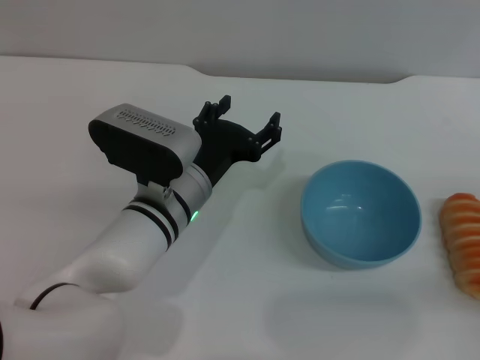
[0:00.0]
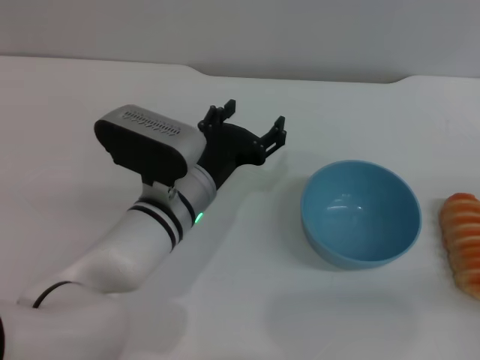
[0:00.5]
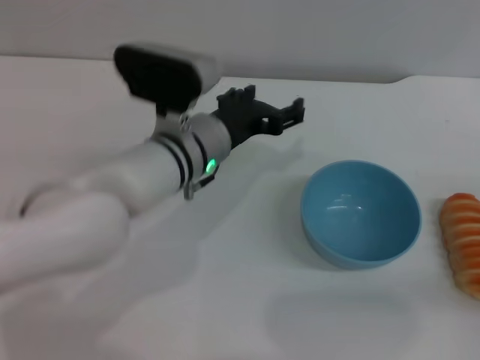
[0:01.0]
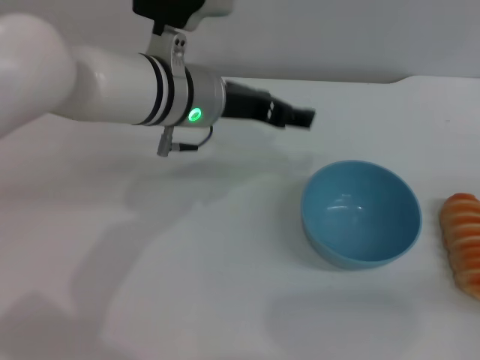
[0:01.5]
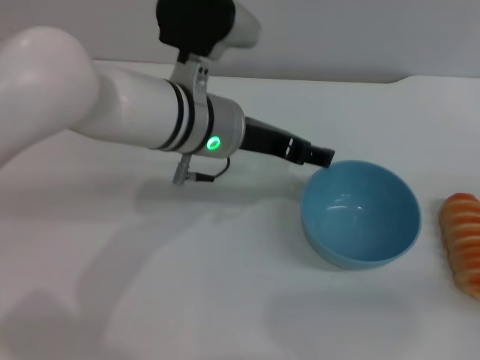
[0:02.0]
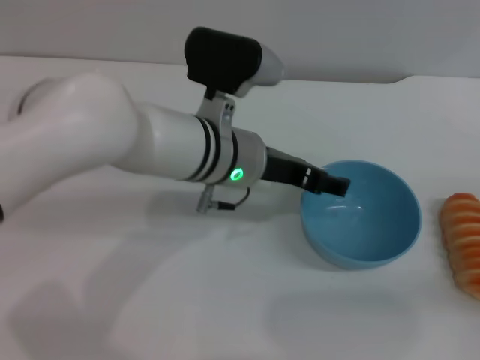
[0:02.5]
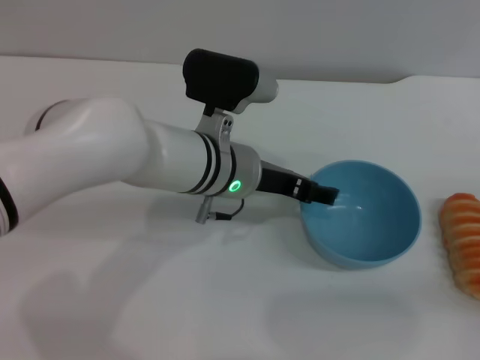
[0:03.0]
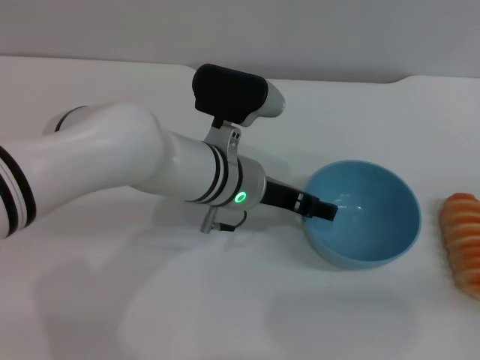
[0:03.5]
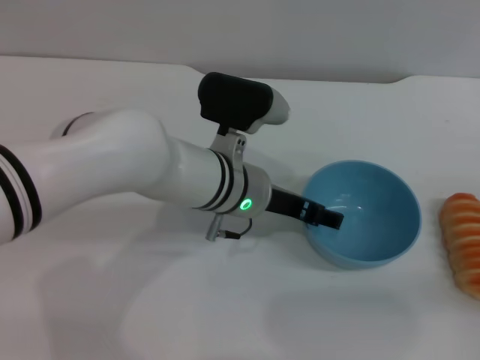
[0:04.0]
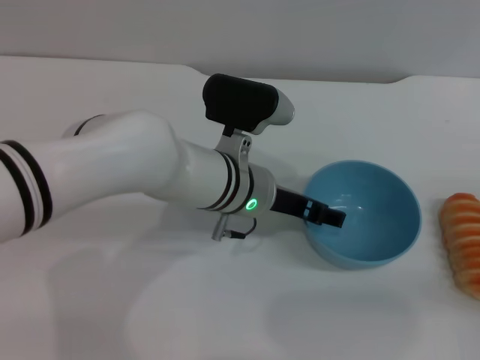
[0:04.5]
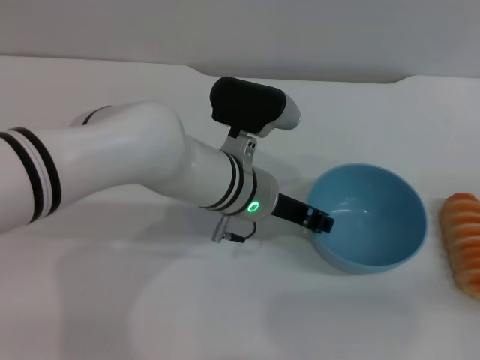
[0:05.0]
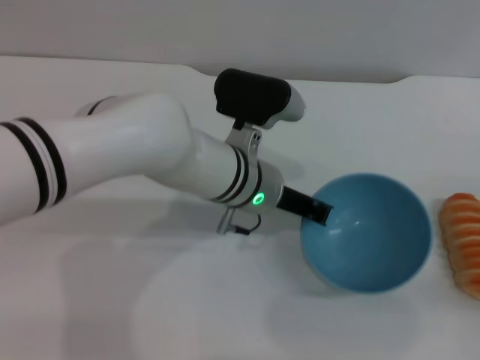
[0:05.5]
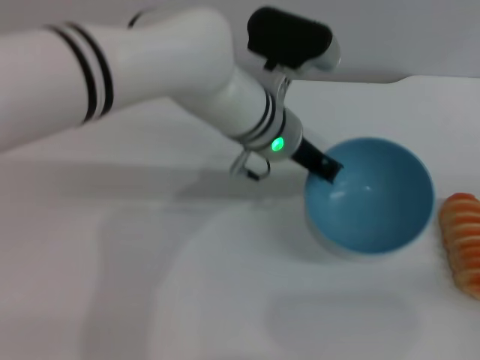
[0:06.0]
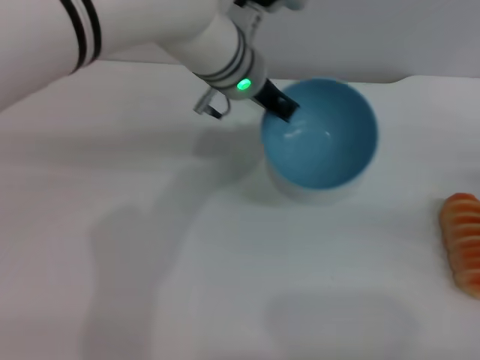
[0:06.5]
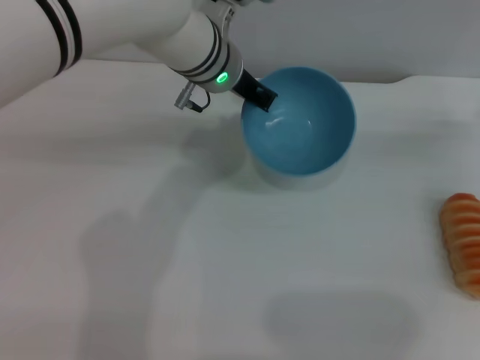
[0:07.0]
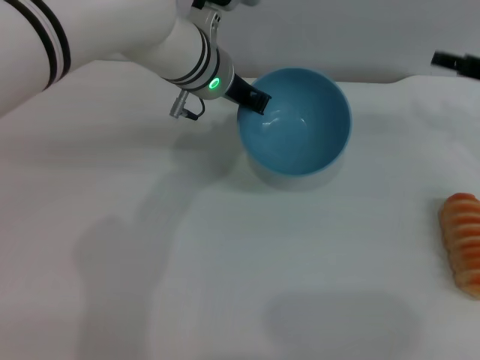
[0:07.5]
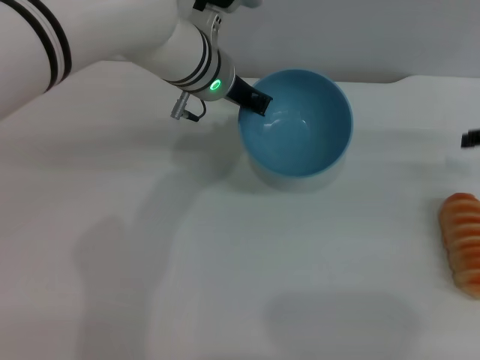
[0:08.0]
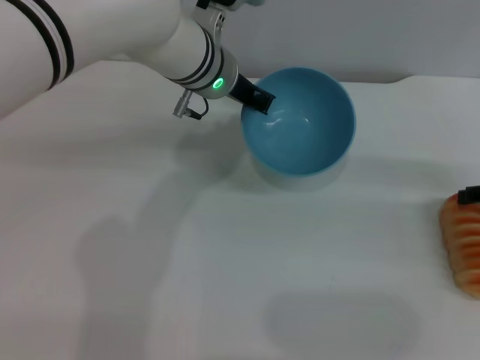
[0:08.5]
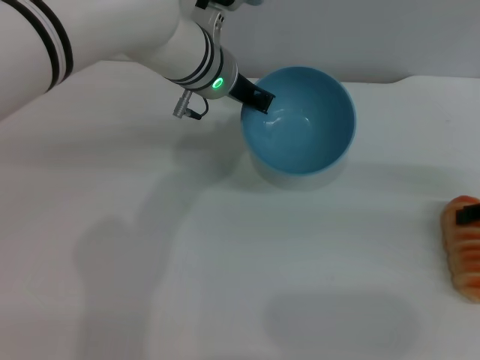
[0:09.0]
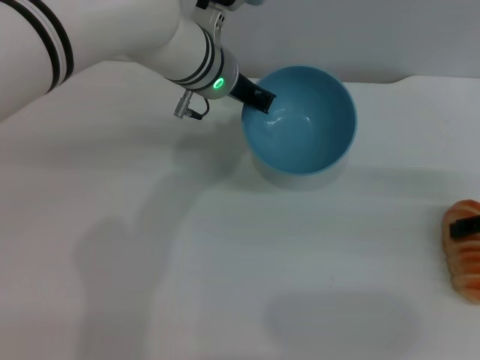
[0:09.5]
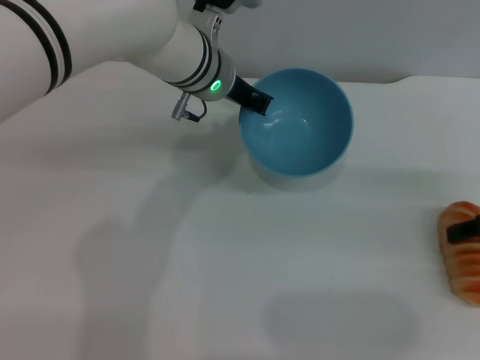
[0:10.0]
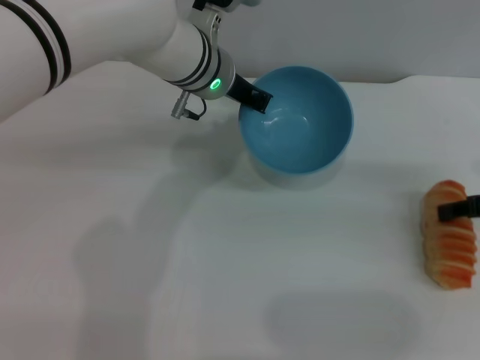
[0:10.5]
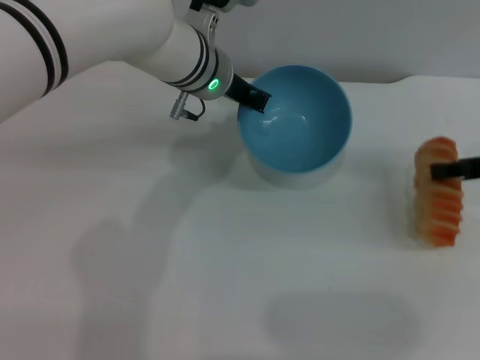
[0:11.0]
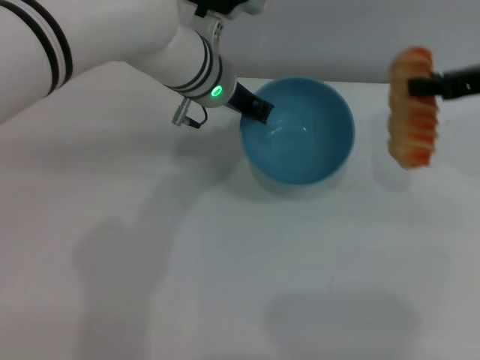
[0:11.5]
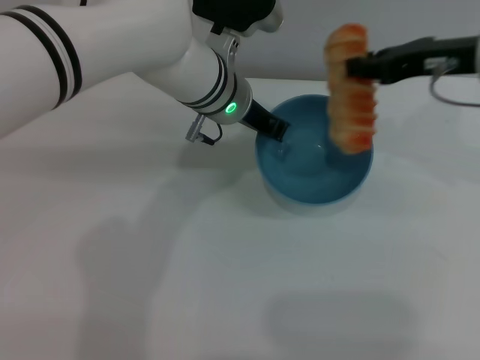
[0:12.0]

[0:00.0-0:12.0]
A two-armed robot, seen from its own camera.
Task of the whole recording: put the bread into the blue bowl and pour it out repeatedly.
Step, 0.0 to 6.5 s: Pick up the bowl with the left gripper.
Step, 7.0 to 11.0 s: Pick up the bread with the right gripper.
0.0 to 2.0 s: The left gripper heads upward, covering some 10 cm.
2.0 to 4.0 s: The left gripper shifts about 5 cm downward.
4.0 to 6.0 s: The left gripper shifts roughly 5 cm forward, and closes.
6.0 to 8.0 s: The left gripper goes some 5 cm to the left. Meanwhile the right gripper travels forward and upward by some 20 cm.
8.0 to 10.0 s: The right gripper shifts by approximately 5 cm.
10.0 to 12.0 s: The right gripper moves to the left, upward and forward, about 15 cm, and closes up.

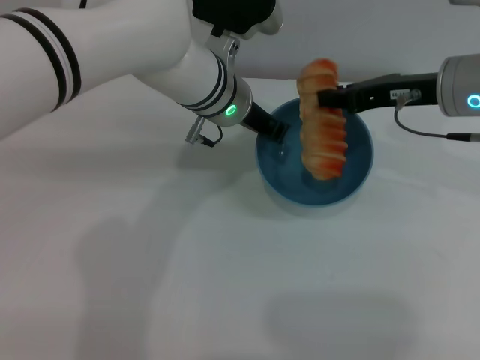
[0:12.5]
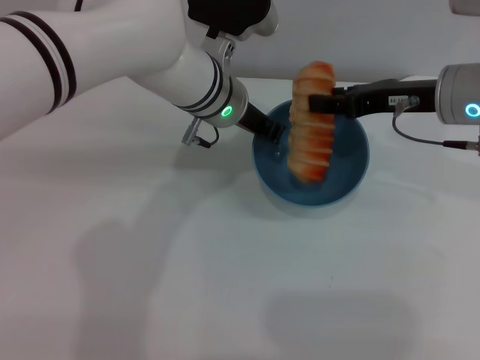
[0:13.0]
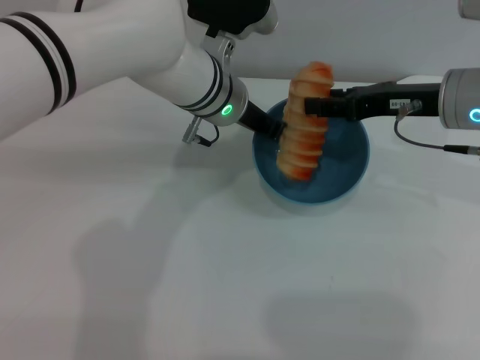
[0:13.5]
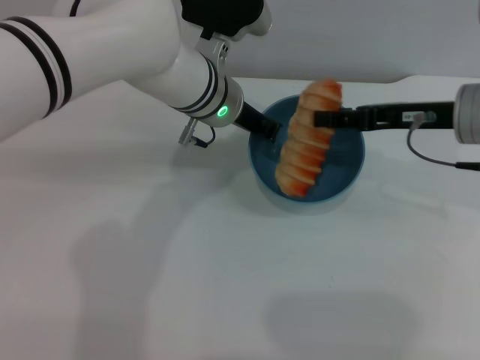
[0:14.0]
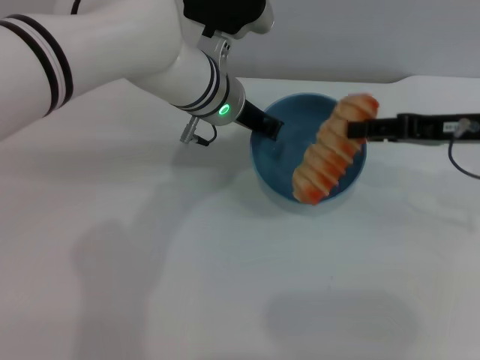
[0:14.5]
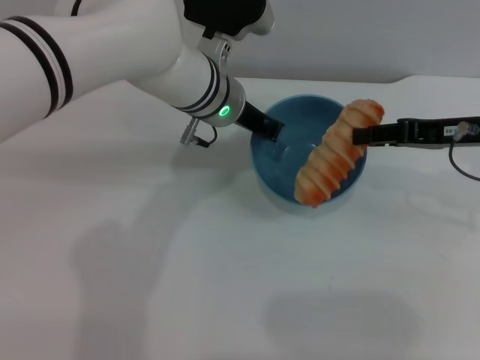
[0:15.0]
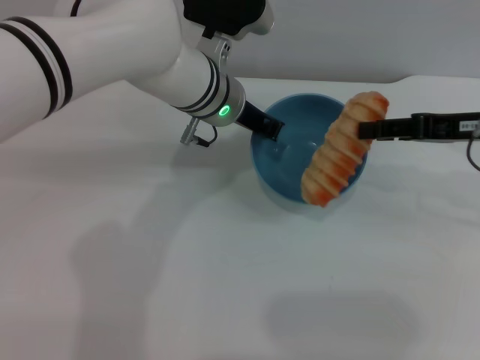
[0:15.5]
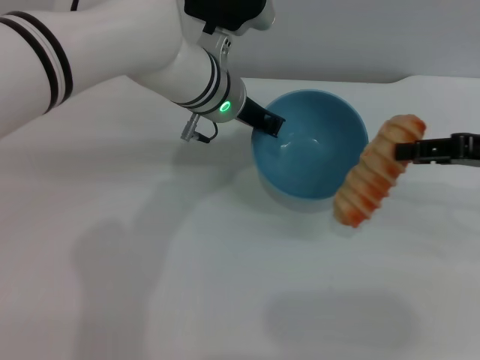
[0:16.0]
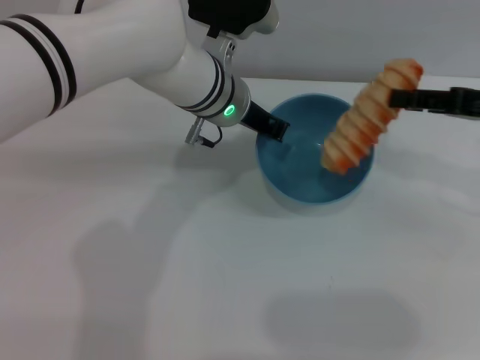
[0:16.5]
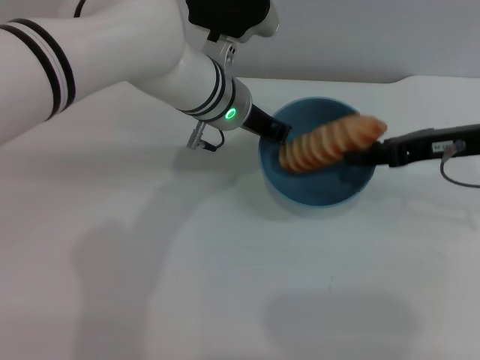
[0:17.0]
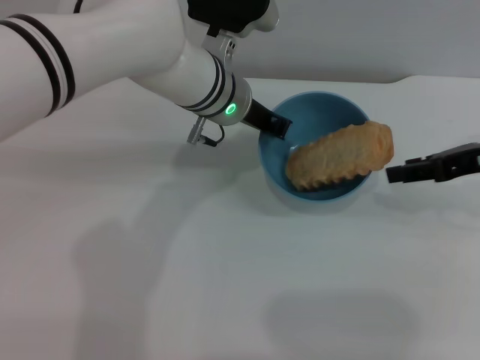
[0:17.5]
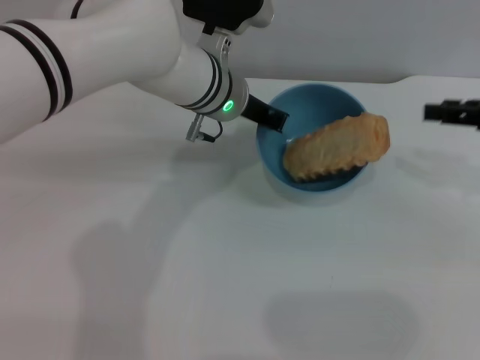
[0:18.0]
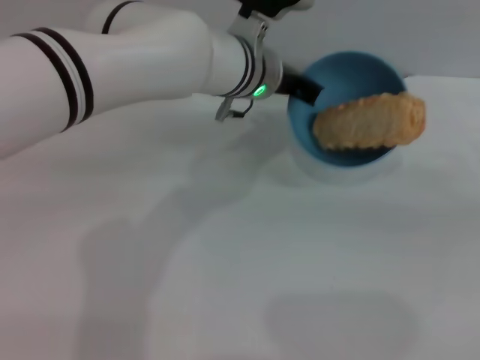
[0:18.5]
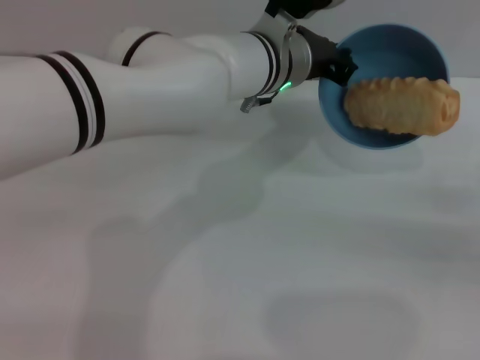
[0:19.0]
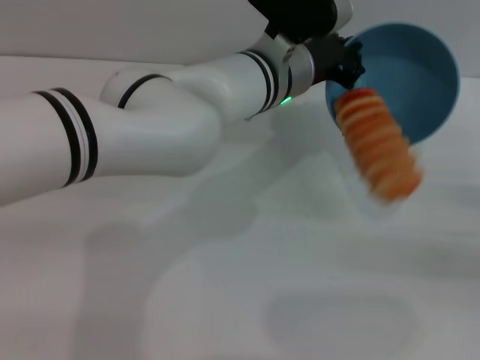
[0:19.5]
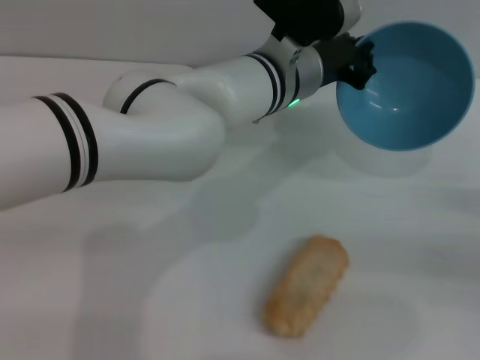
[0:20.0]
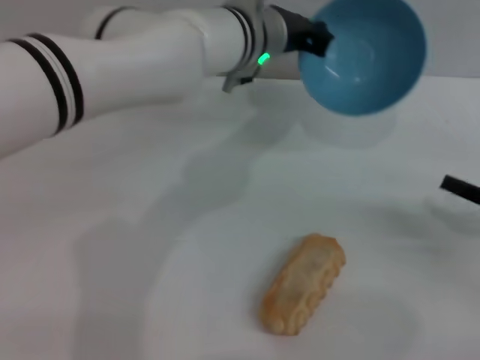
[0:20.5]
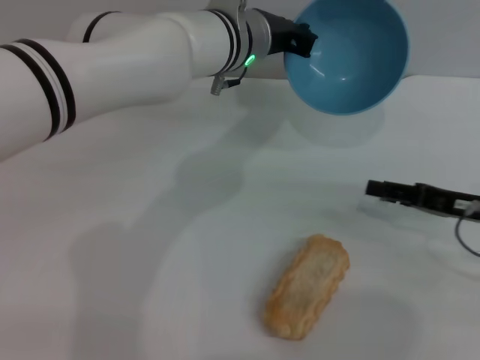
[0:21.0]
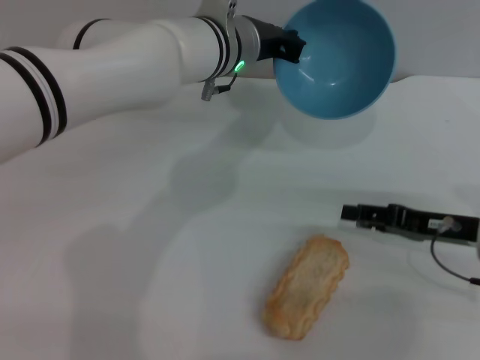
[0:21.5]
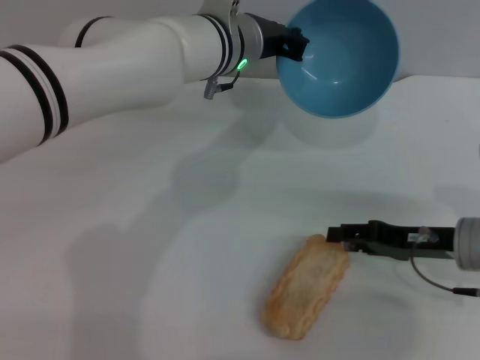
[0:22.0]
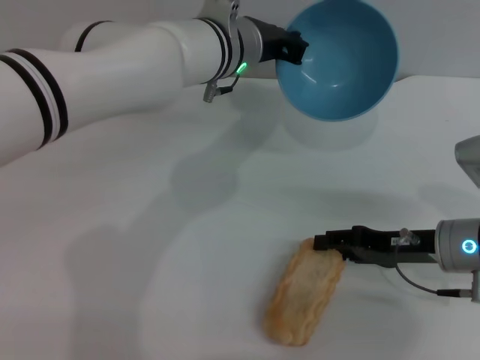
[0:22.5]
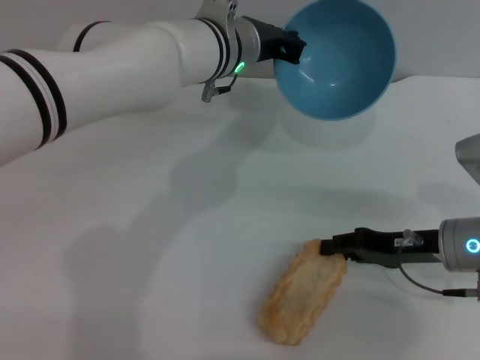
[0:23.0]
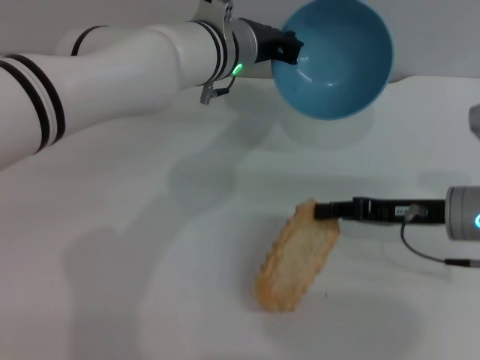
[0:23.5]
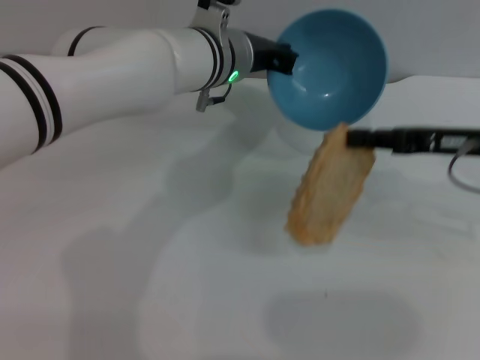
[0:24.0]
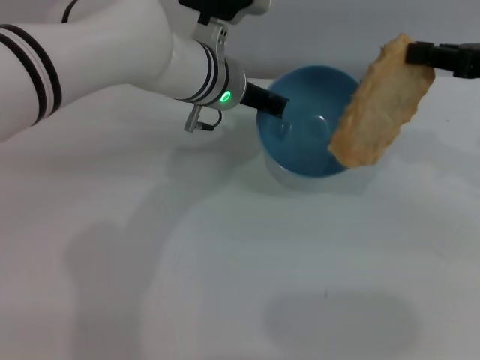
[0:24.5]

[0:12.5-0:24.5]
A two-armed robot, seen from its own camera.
Task of the whole recording: put the bread into the blue bowl and pour it out repeatedly.
Step, 12.5 to 17.5 s: Place the bread into the bowl.
Step, 18.0 to 20.0 s: Pour the bread out of the bowl.
Step, 20.5 to 23.5 s: Pick up the bread with the right gripper.
12.5 to 14.5 s: The right gripper is displaced to the right by about 5 cm, and opens up.
14.5 to 16.5 s: The grippers make only small movements.
16.5 to 18.5 s: The right gripper heads to the right and backward, covering some 10 cm.
18.5 to 20.5 s: The right gripper goes about 5 cm downward.
20.5 to 22.5 s: The right gripper shifts roughly 10 cm to the left.
22.5 to 24.5 s: The right gripper goes about 15 cm upward, and closes its fingers.

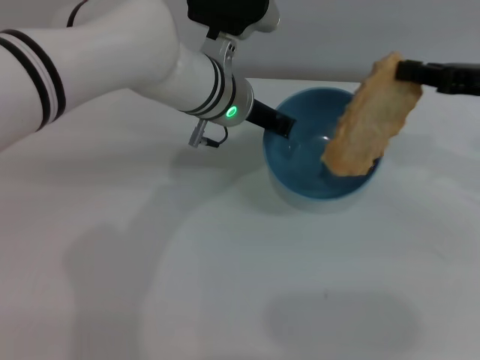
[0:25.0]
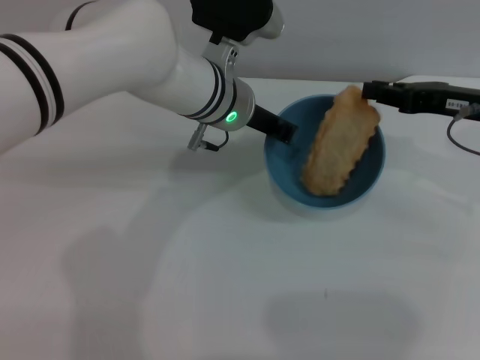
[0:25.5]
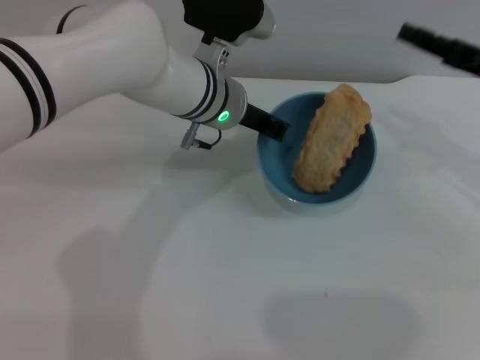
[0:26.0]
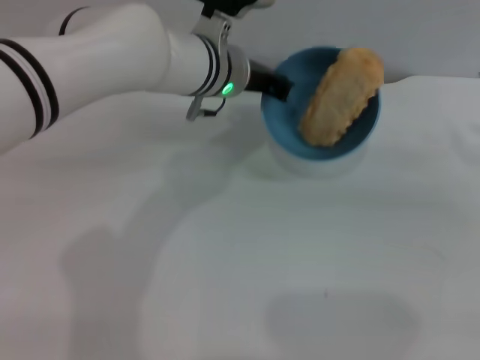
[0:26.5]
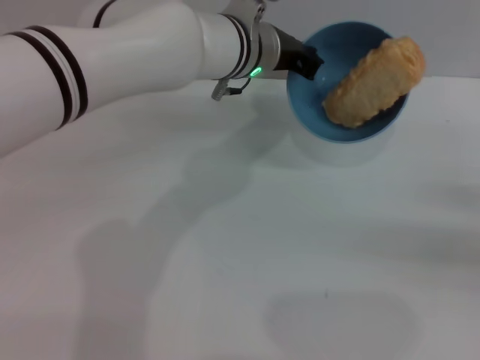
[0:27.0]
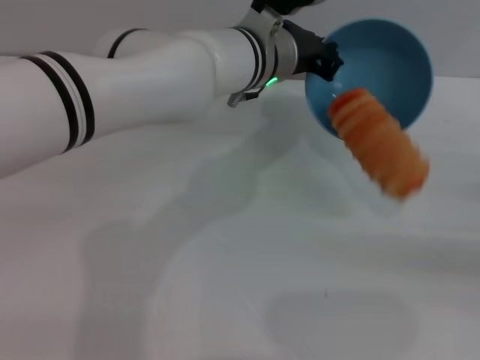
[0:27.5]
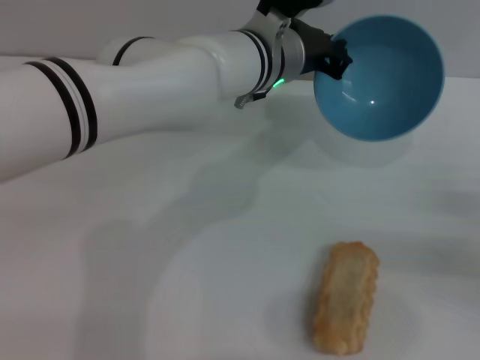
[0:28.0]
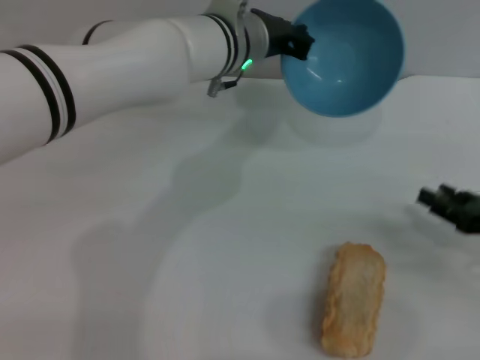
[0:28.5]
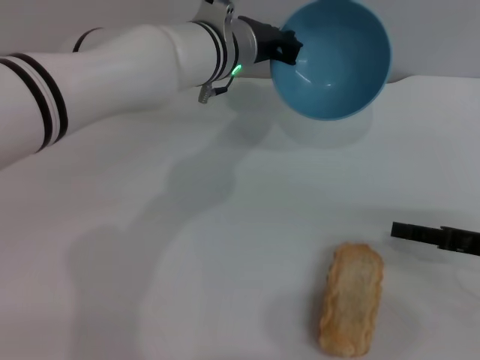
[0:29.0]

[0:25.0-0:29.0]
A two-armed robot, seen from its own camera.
Task of the whole recording: put the bread into the blue bowl and pour it out repeatedly.
Step, 26.5 to 28.0 s: Pour the bread out of the bowl.
25.0 to 27.0 s: The right gripper moves downward, to the right and backward, about 20 cm, and opens up.
27.0 to 29.0 s: The right gripper shifts roughly 5 cm to the left.
